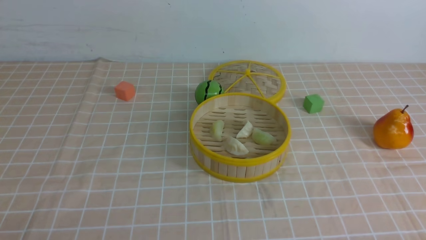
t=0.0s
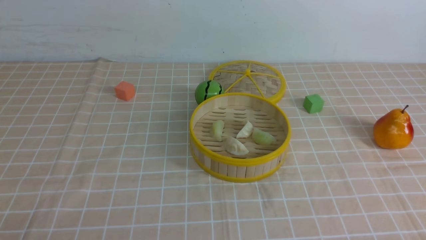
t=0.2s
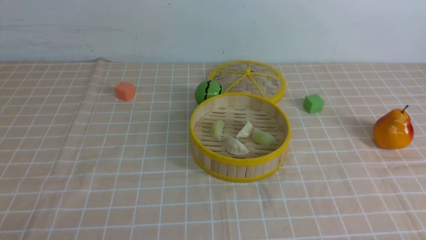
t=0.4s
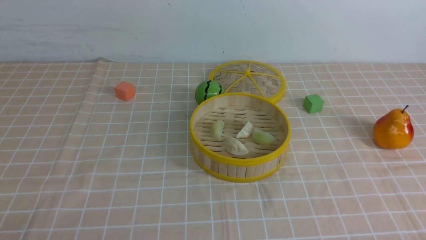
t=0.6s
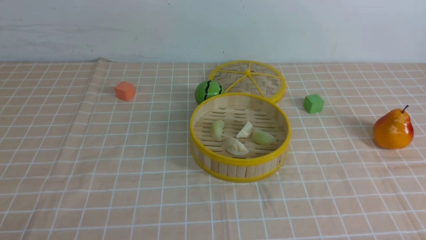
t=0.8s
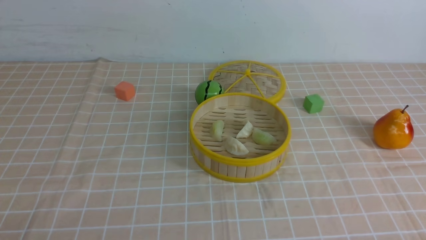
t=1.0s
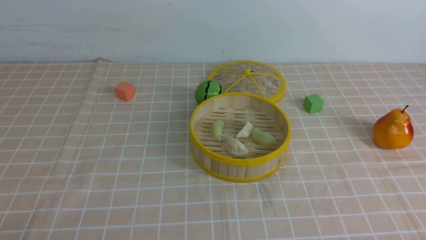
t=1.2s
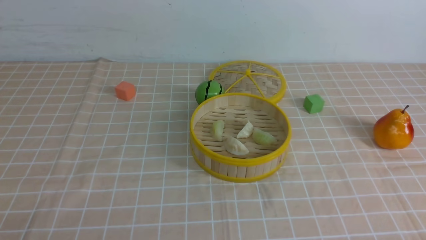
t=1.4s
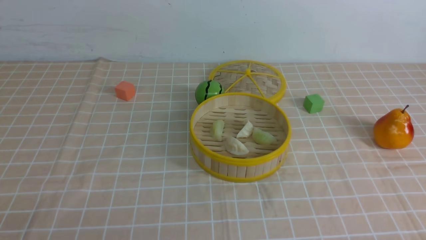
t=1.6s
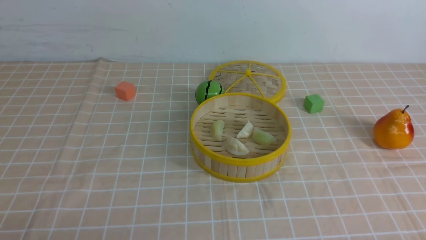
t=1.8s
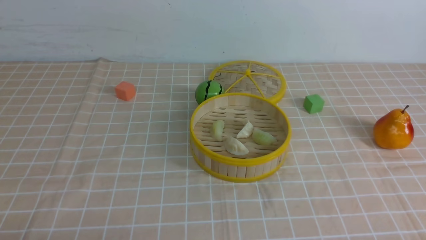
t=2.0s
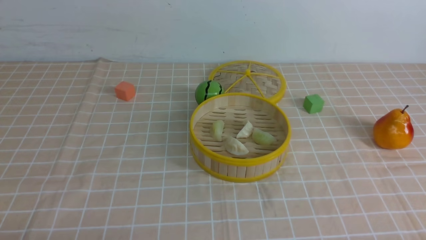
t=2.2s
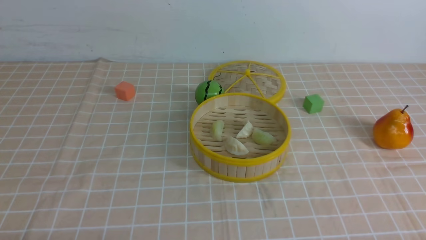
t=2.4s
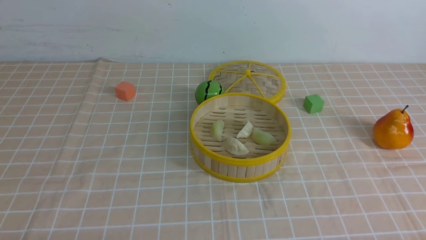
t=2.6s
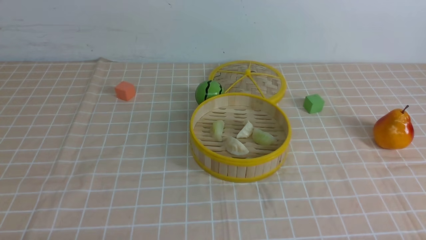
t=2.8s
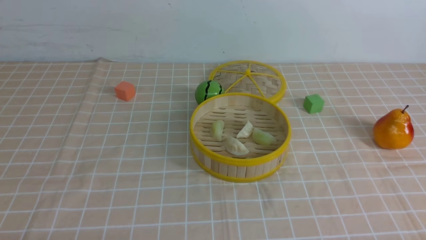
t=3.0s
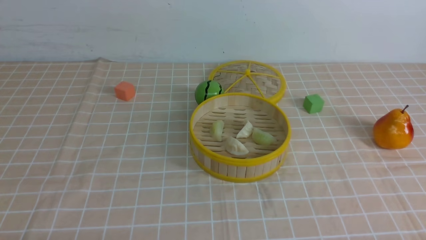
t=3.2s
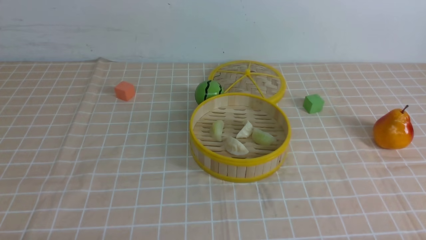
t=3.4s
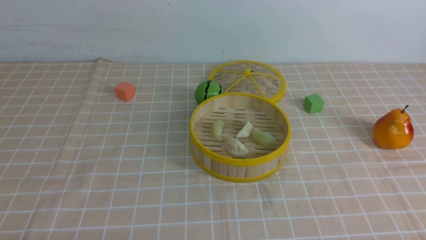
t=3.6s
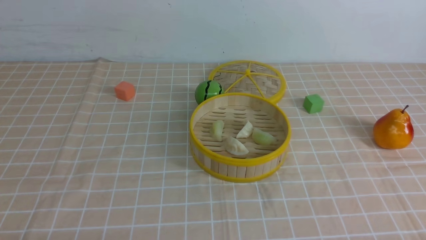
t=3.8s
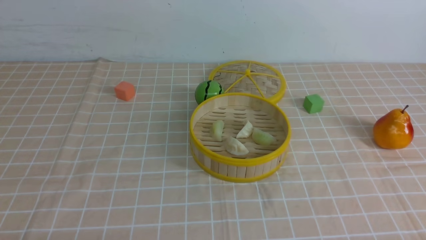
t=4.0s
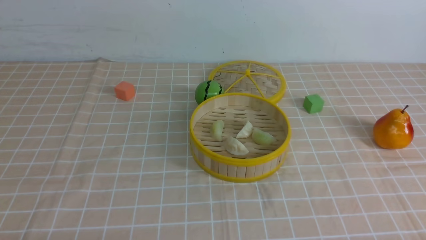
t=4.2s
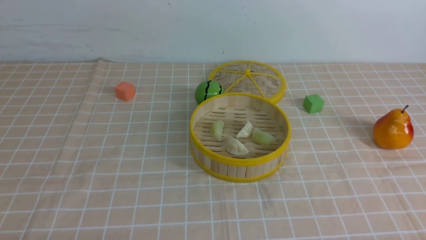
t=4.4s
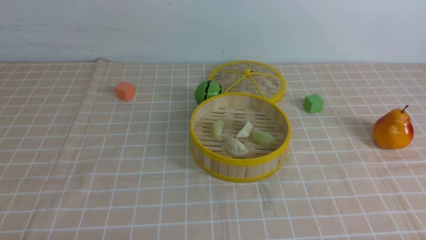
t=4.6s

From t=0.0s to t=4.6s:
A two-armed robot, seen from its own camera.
Task of the whole recording: put the dumplings into the steamer on the table with the brown tablecloth.
From t=3.0s to t=4.6s: Both grippers stay about where they are.

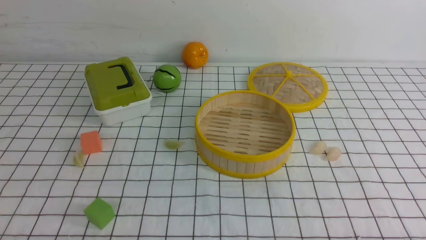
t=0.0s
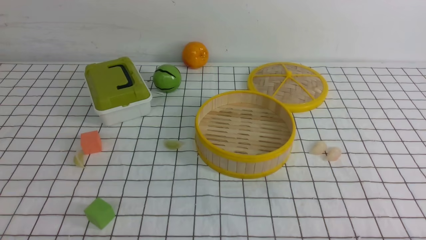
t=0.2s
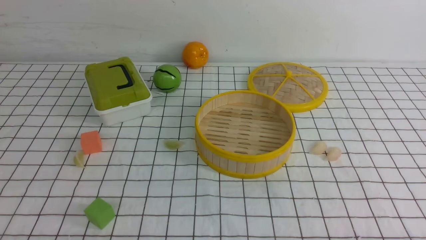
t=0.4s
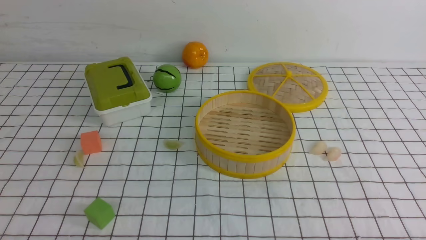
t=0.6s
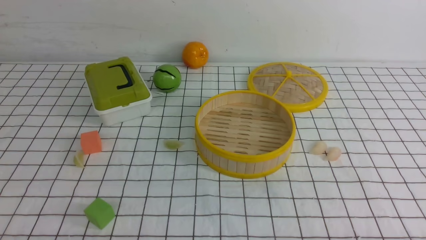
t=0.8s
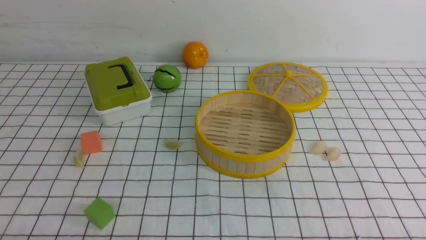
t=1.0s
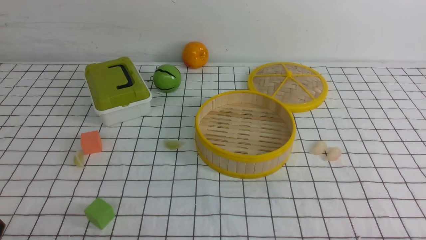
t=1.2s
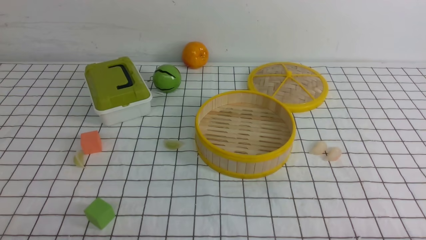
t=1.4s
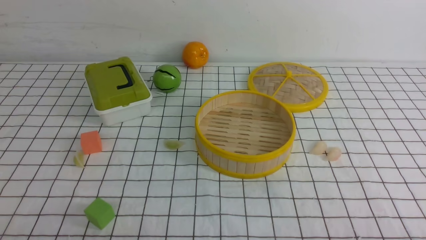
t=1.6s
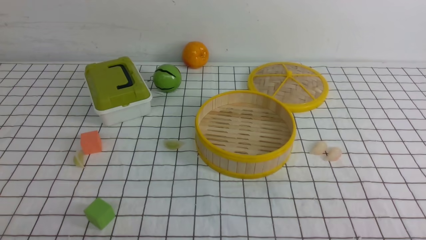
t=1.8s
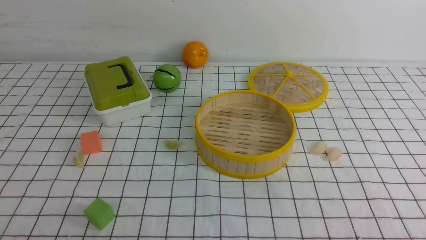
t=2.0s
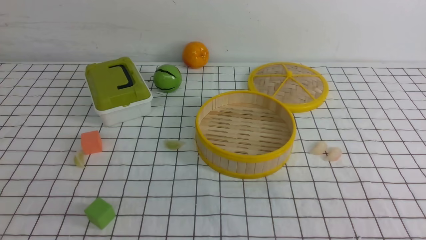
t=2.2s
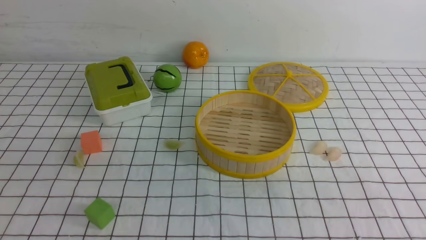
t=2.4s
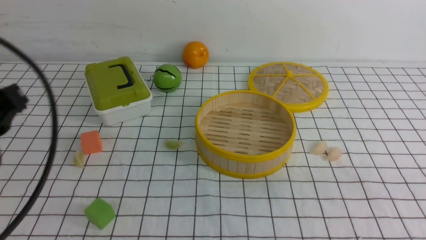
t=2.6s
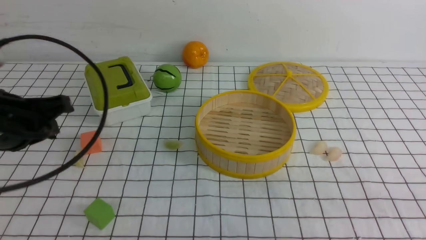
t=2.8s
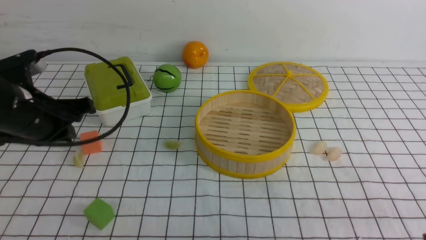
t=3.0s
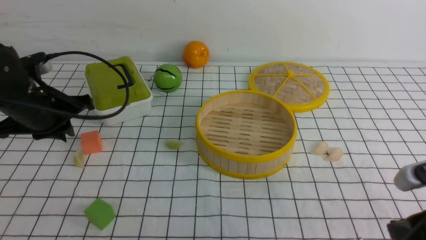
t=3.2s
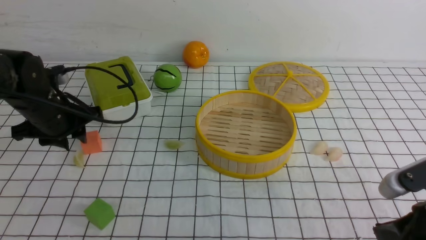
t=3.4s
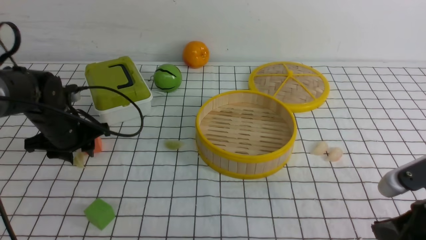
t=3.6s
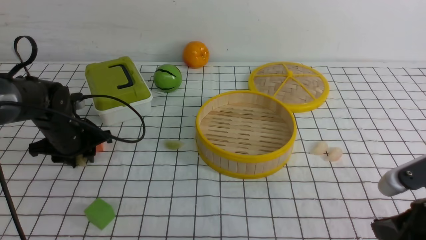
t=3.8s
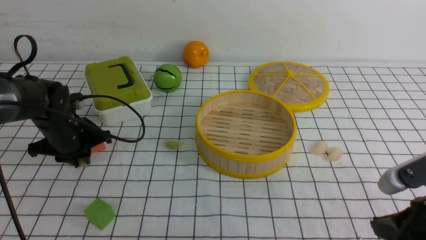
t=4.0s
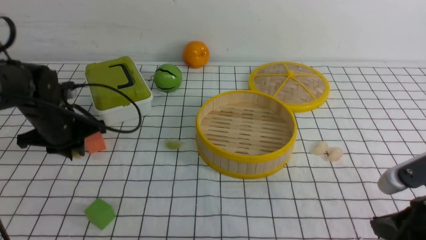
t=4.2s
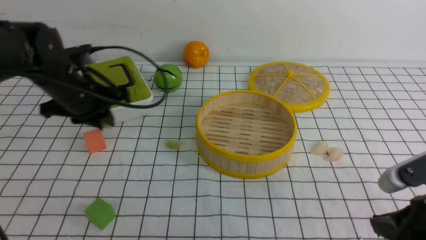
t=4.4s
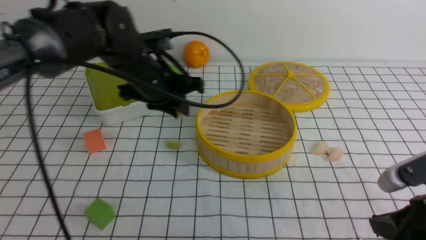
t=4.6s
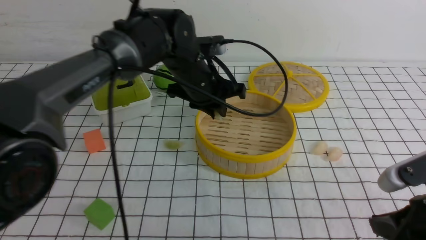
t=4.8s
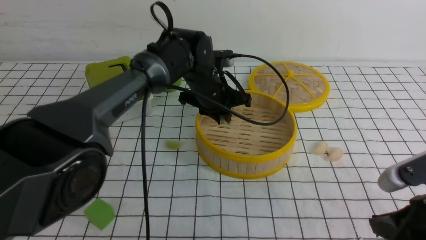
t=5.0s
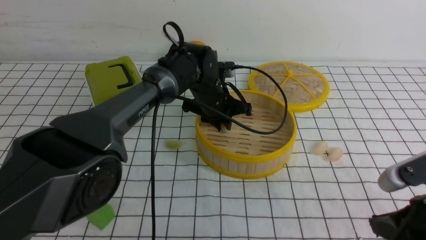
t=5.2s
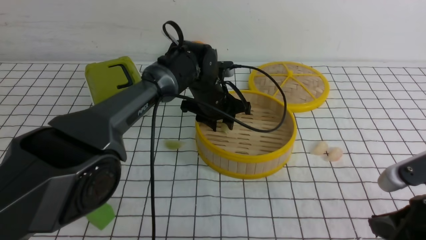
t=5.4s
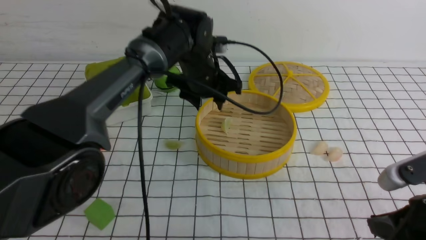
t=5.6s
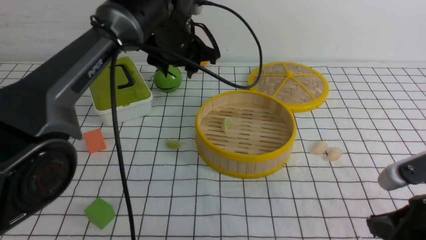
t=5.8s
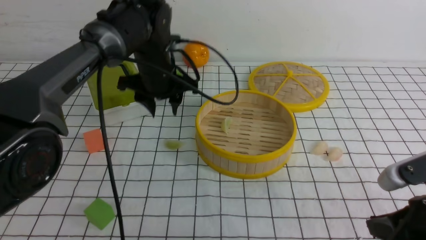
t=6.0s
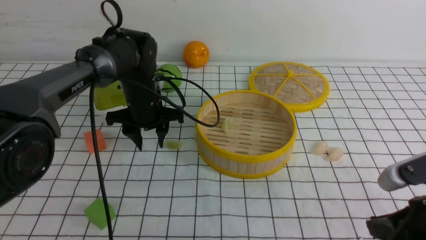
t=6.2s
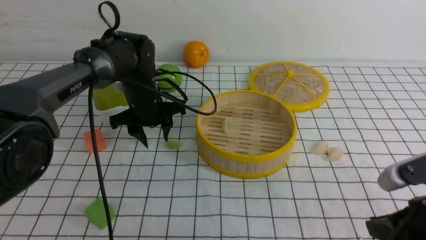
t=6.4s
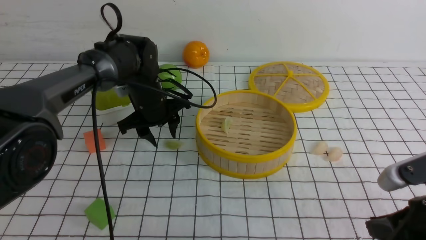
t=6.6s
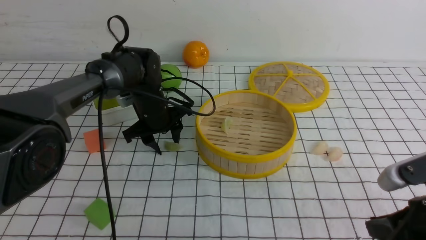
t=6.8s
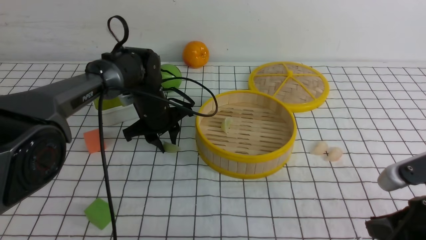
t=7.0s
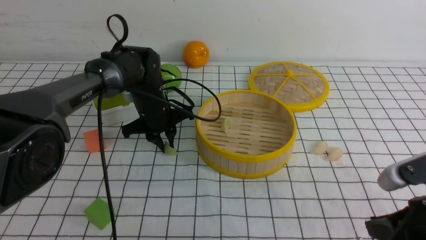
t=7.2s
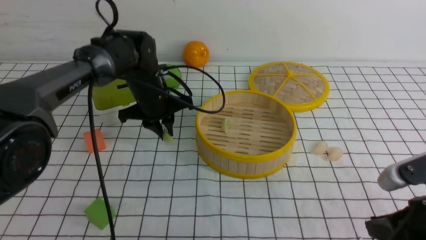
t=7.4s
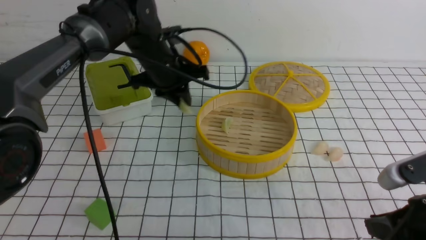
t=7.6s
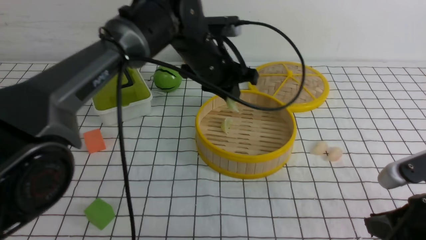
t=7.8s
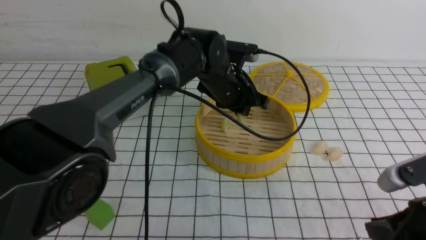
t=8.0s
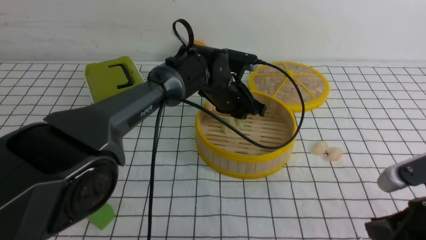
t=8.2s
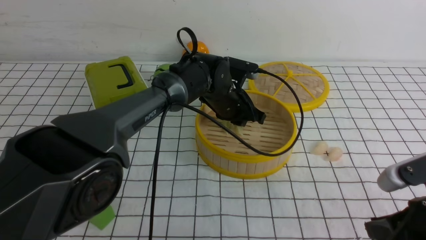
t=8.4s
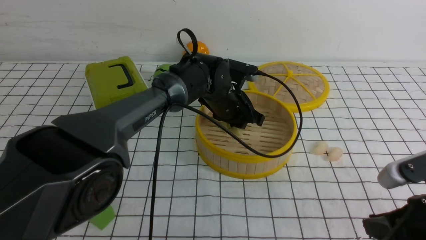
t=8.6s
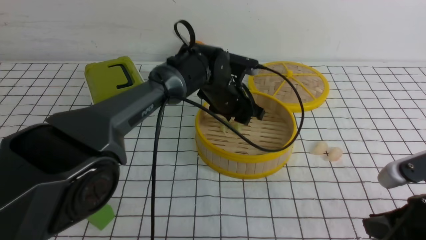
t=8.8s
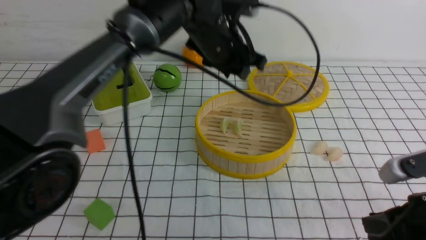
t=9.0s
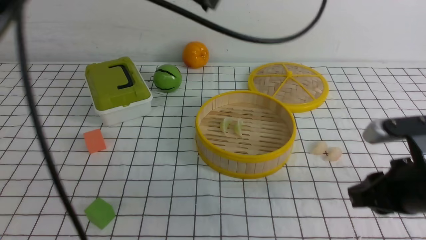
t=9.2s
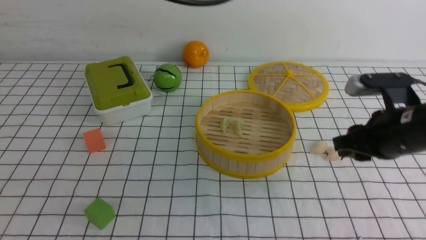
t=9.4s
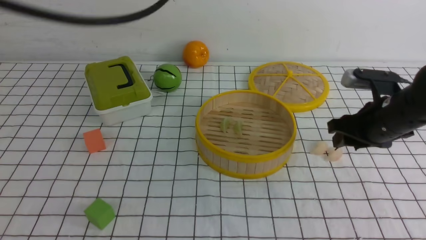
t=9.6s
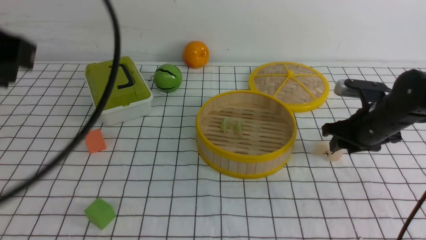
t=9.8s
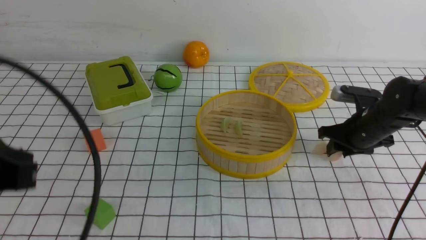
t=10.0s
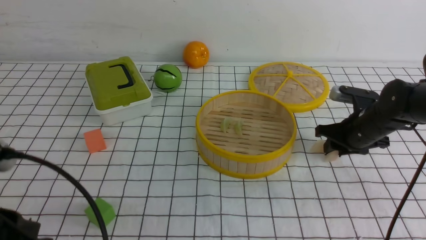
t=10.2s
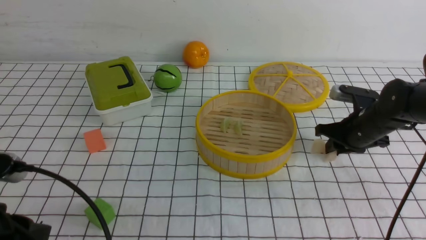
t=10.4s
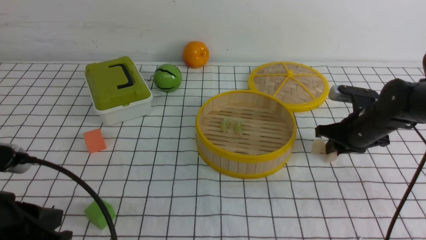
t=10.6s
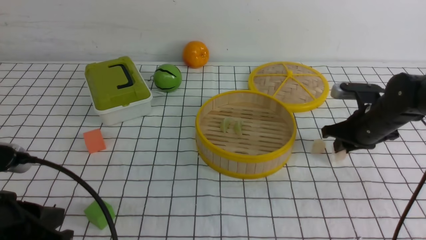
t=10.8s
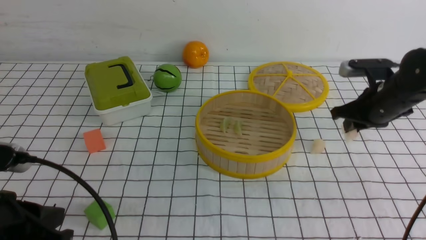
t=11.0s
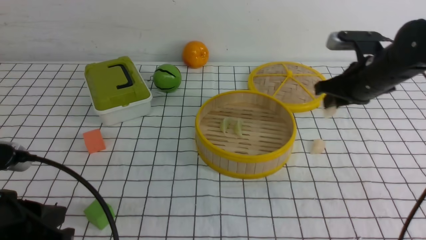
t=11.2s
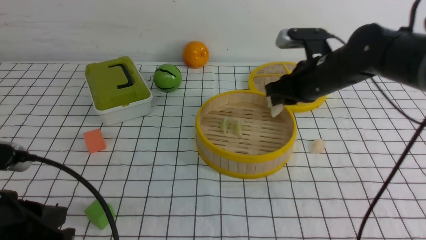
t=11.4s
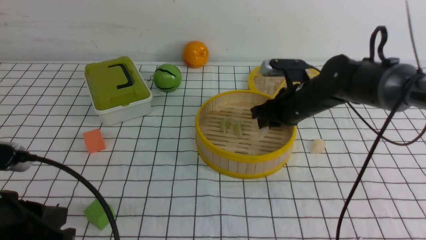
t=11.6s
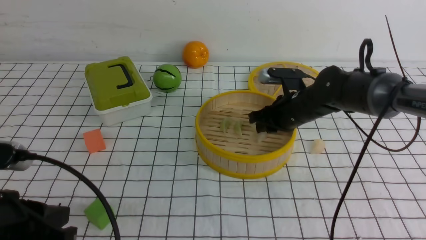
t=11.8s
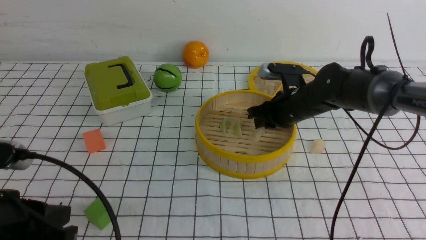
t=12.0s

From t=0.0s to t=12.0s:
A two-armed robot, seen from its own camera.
Task of the whole recording: put the dumplings into the steamer on the table with the white tablecloth.
Step, from t=0.0s to t=4.2s: use the left arm to grab a dumpling.
Step, from t=4.6s to t=5.4s: use the left arm to put the dumpling into the steamer.
Step, from t=5.6s to t=7.4s: use the left arm to grab a dumpling.
Step, from t=7.6s to t=8.8s: use the left arm to put the dumpling into the steamer.
Step, from t=9.0s to t=10.6s: use the right arm to grab a dumpling.
From t=1.6s to t=3.0s: The left gripper heads forward, covering approximately 25 cm.
From t=3.0s to t=4.4s: The left gripper is displaced forward and to the right by roughly 10 cm, goes downward and returns, some 10 cm each way, and opens, then closes again.
From t=4.4s to t=6.0s: The left gripper moves to the right and forward, approximately 10 cm, and opens up.
From t=6.0s to t=7.6s: The left gripper reaches some 10 cm downward, then returns, and closes.
From t=7.6s to t=9.0s: The left gripper travels upward and to the right by some 10 cm.
From t=9.0s to t=10.4s: The left gripper travels backward and to the left by some 35 cm, and closes up. The right gripper shifts about 25 cm forward, and opens and closes again.
From t=10.4s to t=12.0s: The right gripper heads to the left, covering roughly 10 cm.
